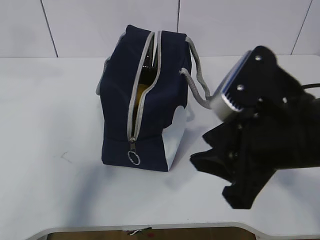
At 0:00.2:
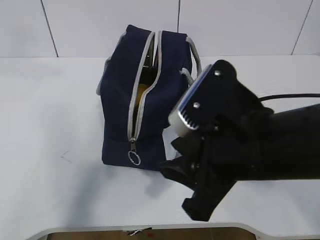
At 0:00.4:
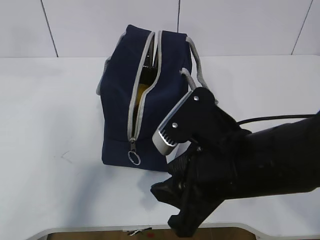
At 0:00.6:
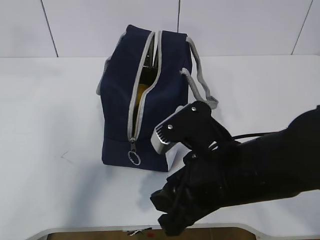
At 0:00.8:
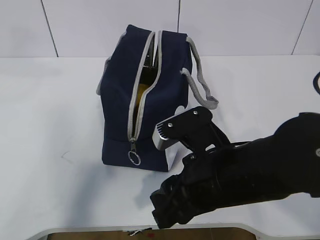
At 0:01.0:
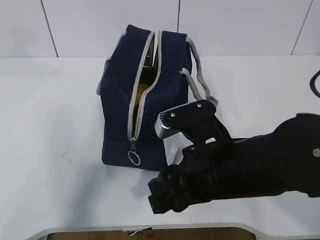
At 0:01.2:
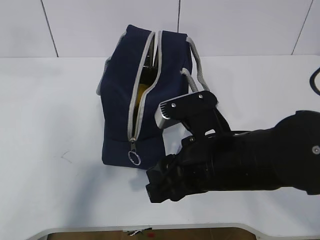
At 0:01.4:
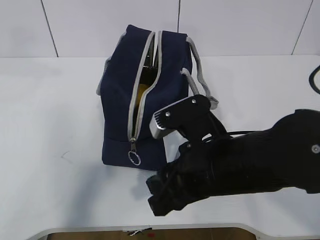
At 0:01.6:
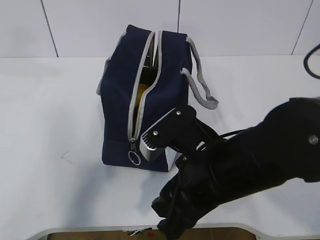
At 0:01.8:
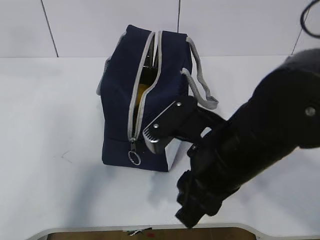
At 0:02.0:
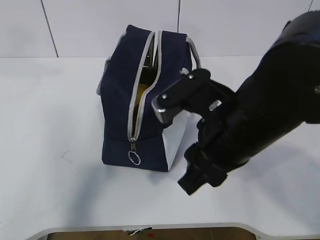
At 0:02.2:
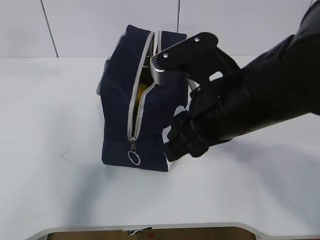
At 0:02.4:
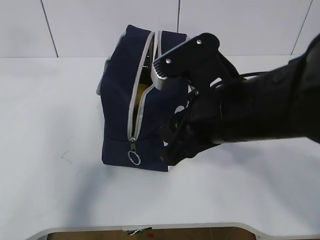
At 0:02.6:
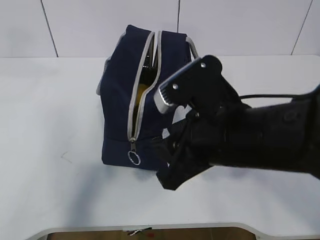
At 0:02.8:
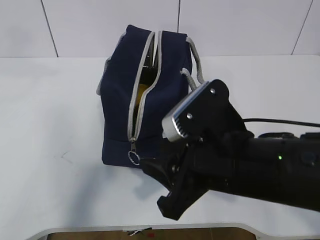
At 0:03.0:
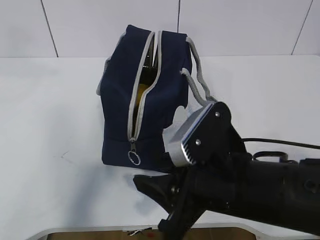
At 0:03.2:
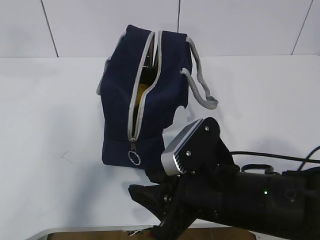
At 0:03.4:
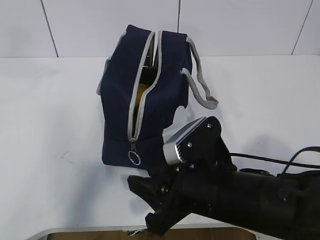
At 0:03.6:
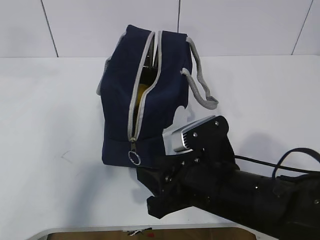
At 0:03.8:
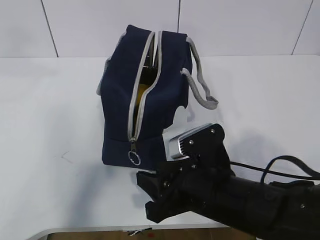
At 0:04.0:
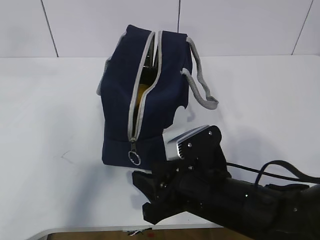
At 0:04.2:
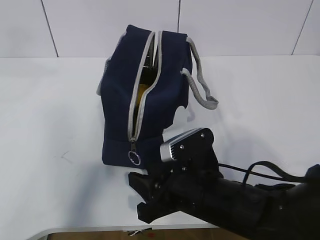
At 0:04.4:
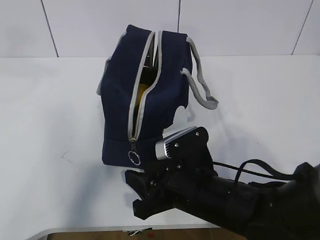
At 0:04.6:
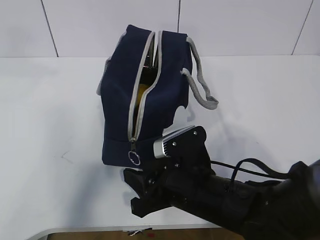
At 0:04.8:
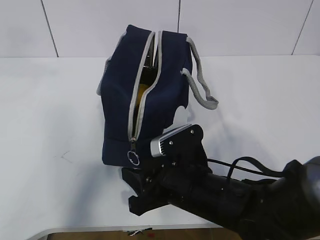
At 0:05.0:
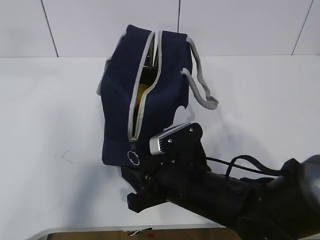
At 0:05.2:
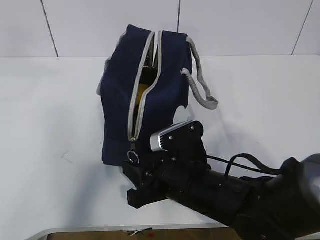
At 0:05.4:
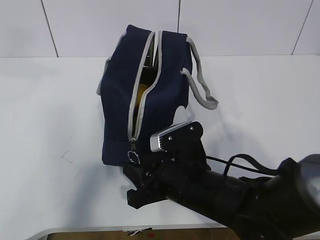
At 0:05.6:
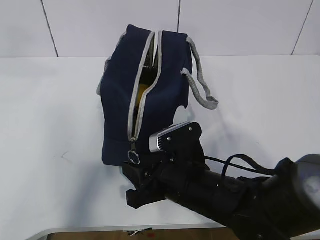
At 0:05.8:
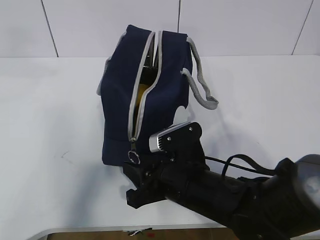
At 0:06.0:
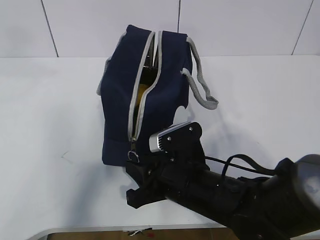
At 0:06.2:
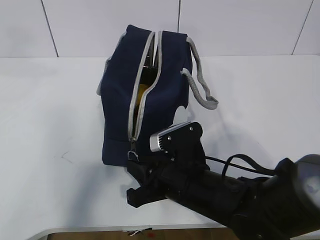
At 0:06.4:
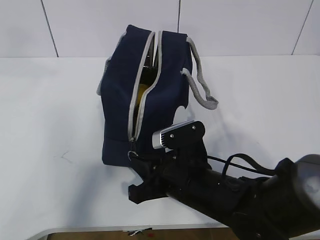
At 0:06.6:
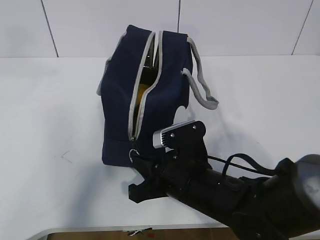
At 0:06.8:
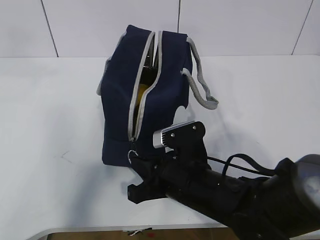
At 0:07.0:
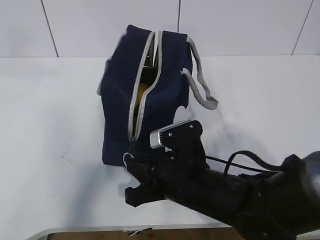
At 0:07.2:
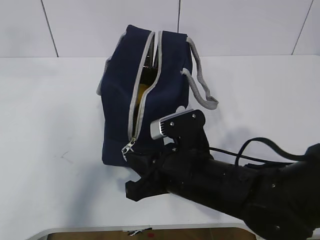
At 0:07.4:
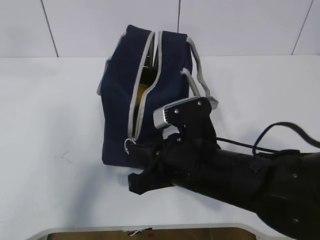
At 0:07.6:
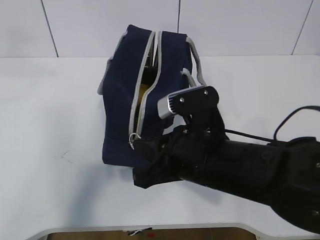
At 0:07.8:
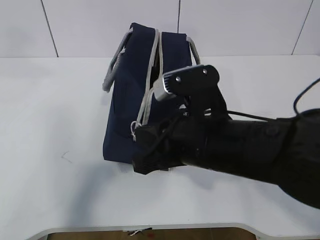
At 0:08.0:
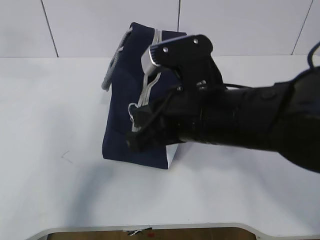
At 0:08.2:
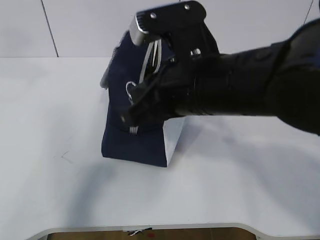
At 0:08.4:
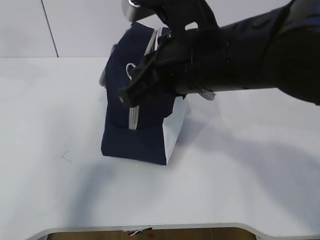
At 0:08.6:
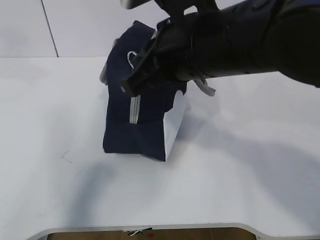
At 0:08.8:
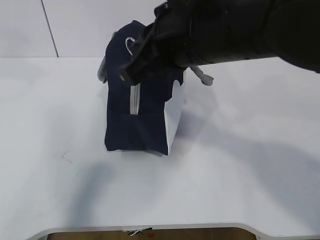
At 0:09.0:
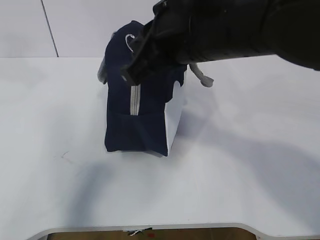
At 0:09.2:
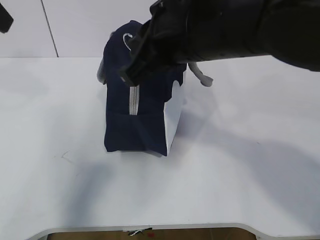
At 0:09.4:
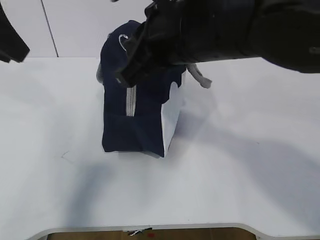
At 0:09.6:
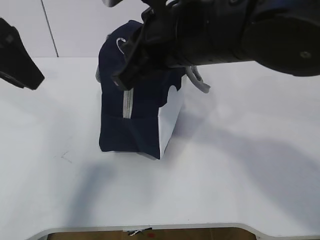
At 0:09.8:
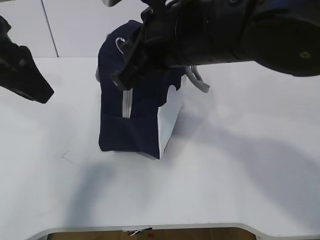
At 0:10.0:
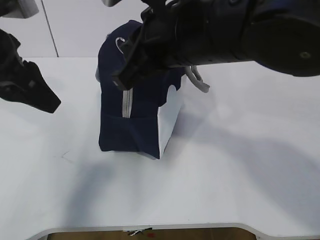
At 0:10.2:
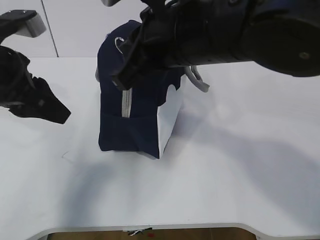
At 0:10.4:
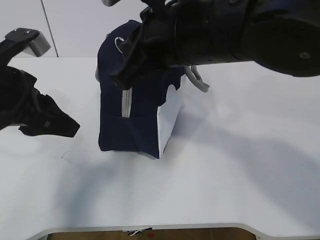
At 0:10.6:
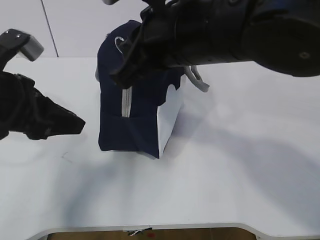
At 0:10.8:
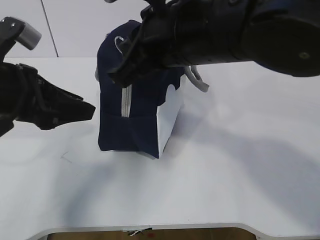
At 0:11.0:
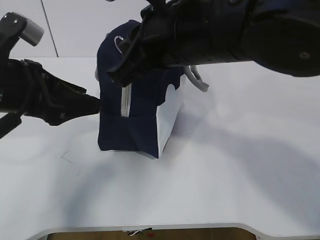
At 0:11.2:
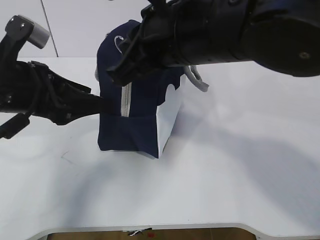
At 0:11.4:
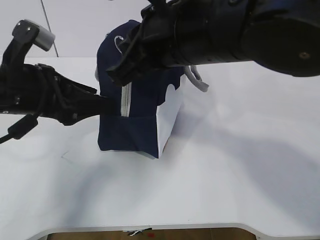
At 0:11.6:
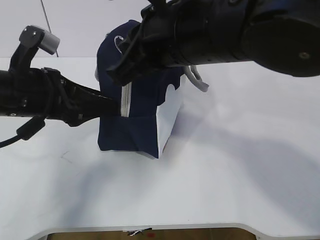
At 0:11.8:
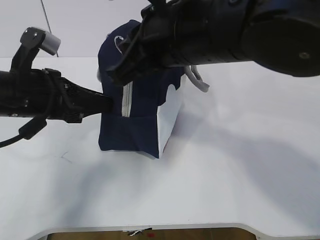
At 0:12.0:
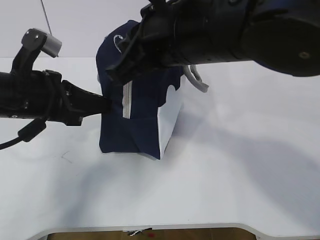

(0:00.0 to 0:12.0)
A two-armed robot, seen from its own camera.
Step, 0:04.4 - 0:09.0: Pull the zipper with your right hand.
Step, 0:09.4 - 0:09.6: Grab the lunch bag with your left hand.
0:00.0 - 0:01.6: The right gripper heads downward and to the left, covering roughly 10 cm.
0:03.0 - 0:04.4: The right gripper heads downward, covering approximately 10 cm.
0:04.4 - 0:06.0: There are only small adjustments of the grippers.
0:06.0 - 0:07.6: The right gripper moves upward, some 5 cm, and closes.
0:07.6 - 0:09.0: The right gripper moves upward, about 15 cm.
0:09.0 - 0:10.4: The left gripper shifts approximately 20 cm downward.
0:10.4 - 0:12.0: The left gripper closes up.

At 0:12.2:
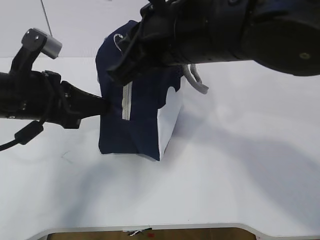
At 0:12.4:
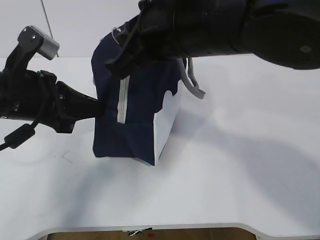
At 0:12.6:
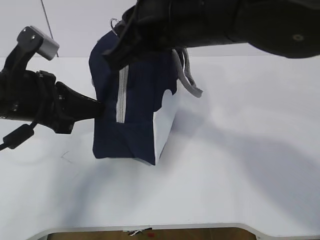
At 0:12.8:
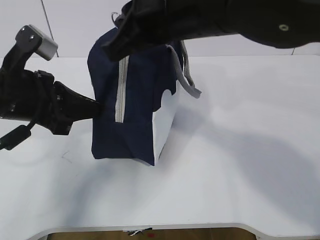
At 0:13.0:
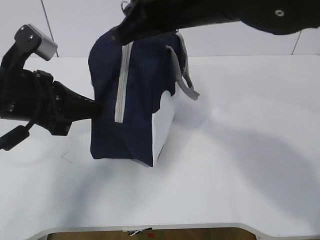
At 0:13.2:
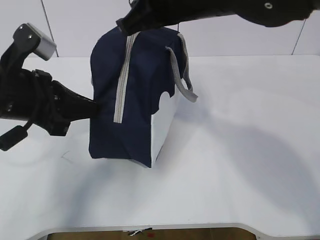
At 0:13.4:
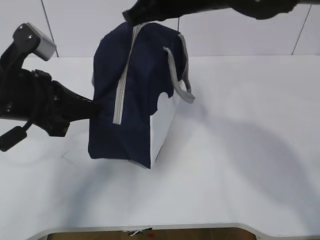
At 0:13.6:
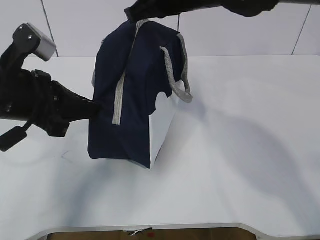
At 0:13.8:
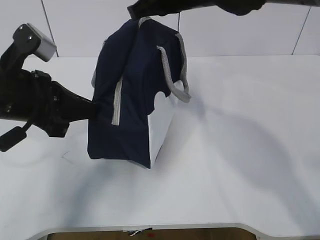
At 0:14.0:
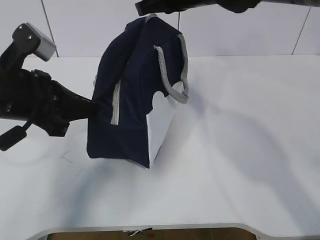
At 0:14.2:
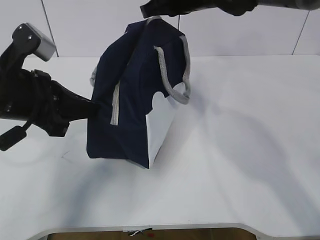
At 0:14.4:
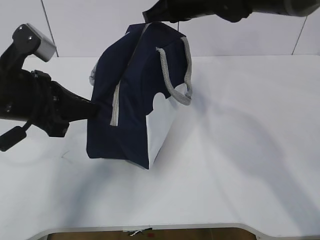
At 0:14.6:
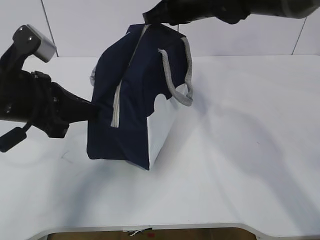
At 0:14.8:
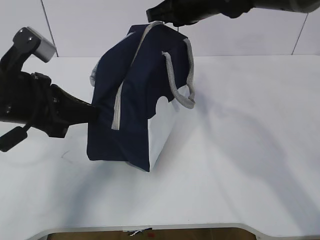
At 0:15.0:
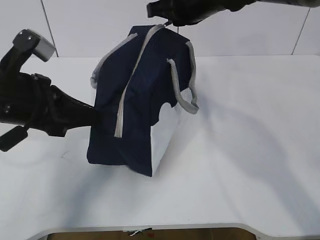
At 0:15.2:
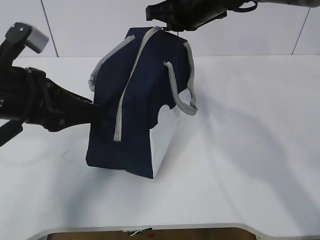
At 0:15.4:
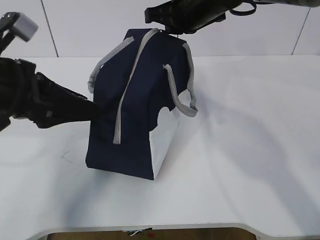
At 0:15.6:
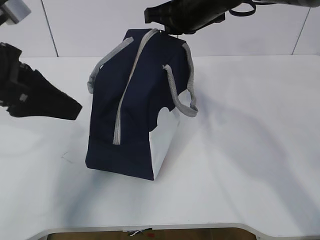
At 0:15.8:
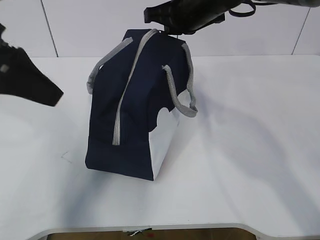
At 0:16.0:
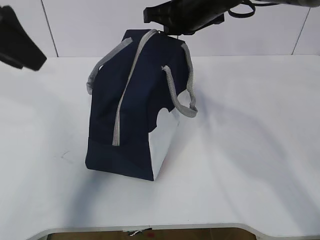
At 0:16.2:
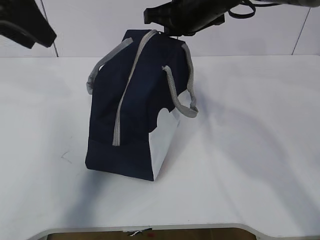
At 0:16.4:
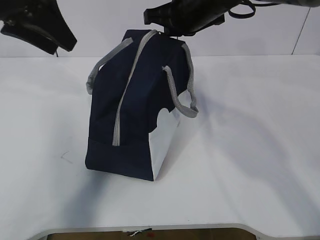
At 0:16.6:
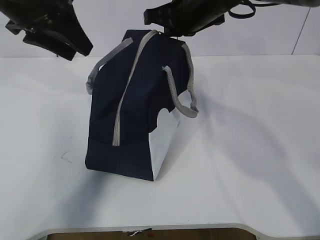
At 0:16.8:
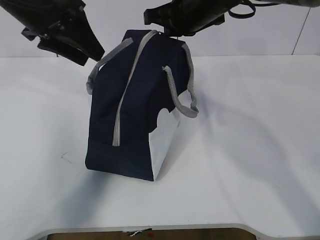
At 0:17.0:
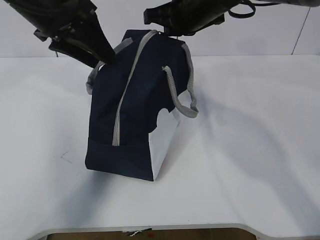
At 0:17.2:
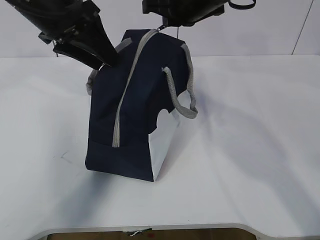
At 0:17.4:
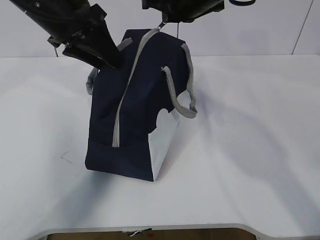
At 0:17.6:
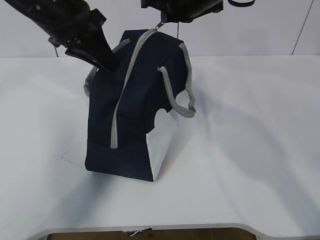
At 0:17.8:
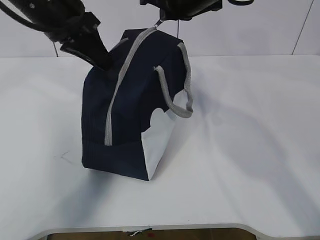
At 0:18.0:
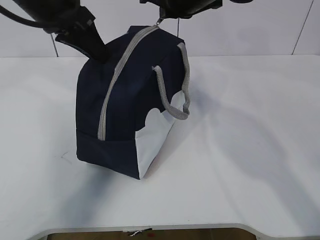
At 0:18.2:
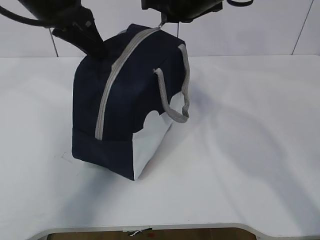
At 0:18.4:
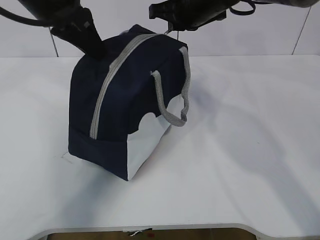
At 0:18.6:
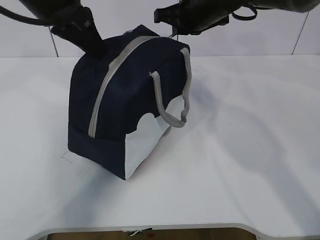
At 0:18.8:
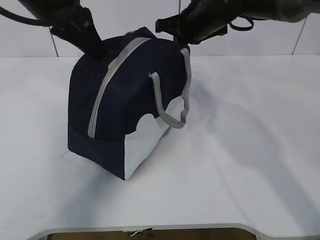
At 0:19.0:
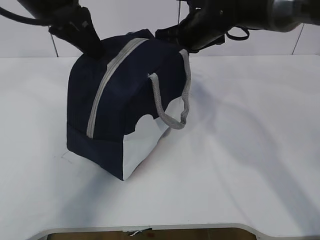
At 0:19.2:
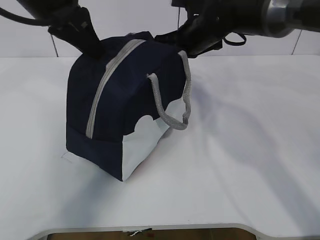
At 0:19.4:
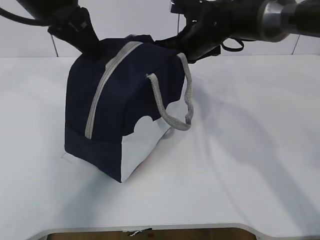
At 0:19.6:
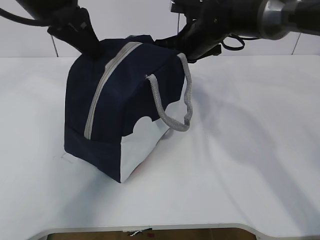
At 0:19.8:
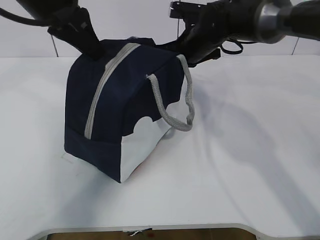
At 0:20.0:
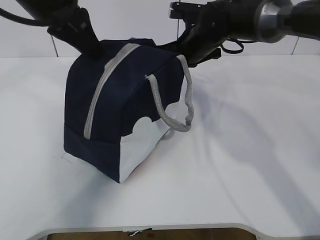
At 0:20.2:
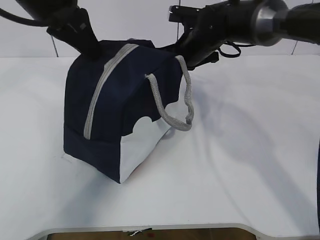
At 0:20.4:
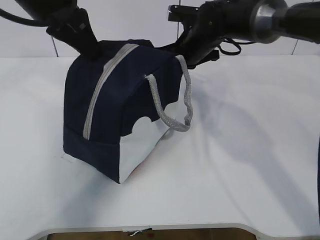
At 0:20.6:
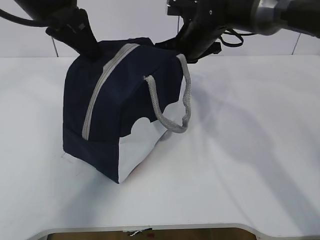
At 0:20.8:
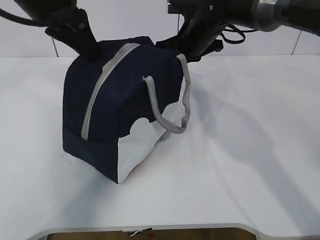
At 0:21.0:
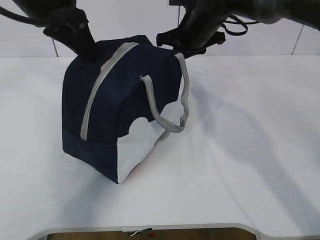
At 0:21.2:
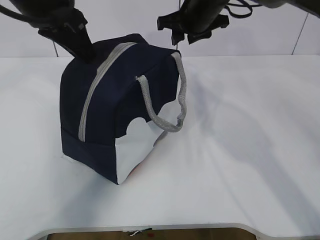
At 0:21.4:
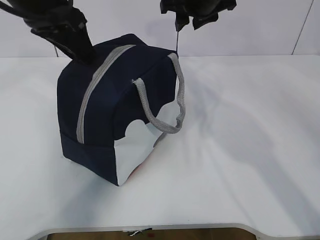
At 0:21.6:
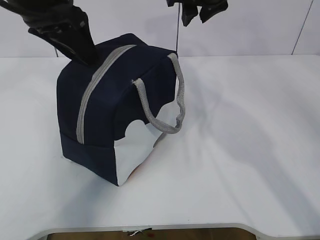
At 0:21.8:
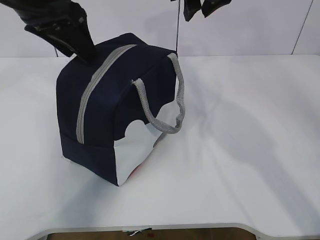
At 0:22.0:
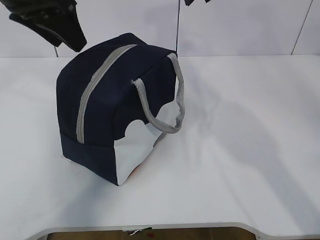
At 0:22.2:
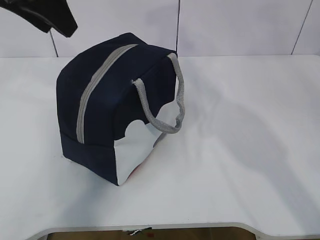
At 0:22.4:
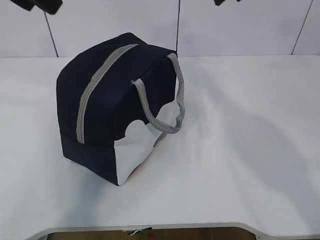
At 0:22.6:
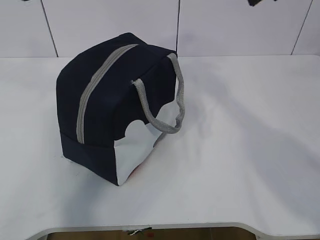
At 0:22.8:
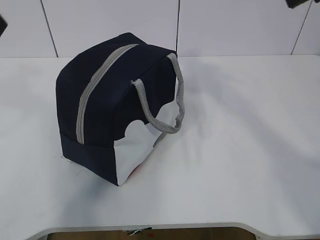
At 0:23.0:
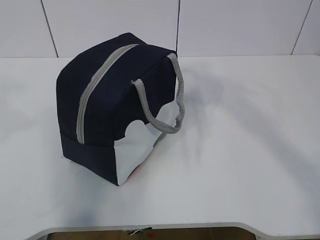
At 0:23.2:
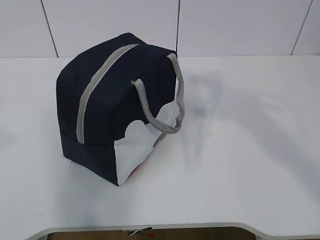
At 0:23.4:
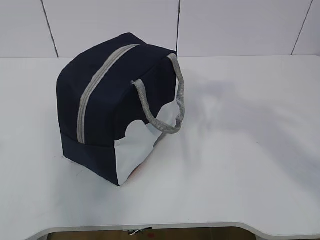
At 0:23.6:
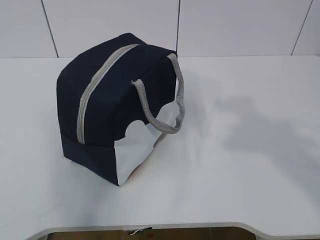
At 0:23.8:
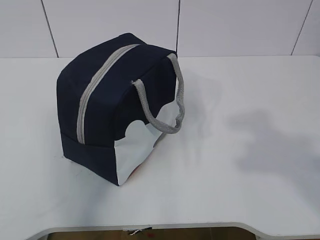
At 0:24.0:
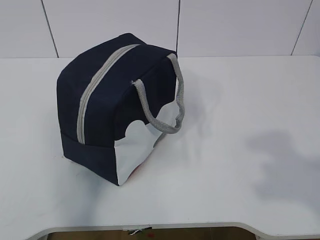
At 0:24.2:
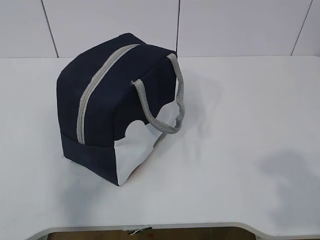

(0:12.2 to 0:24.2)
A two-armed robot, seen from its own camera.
0:12.2 - 0:13.8: The right gripper moves forward, roughly 15 cm.
0:13.8 - 0:15.2: The left gripper opens. The right gripper changes place by roughly 5 cm.
0:15.2 - 0:16.6: The left gripper goes approximately 15 cm forward and upward.
0:16.6 - 0:18.2: The left gripper closes up.
0:18.2 - 0:19.8: The right gripper shifts approximately 10 cm downward.
0:19.8 - 0:21.2: The right gripper heads upward, covering approximately 5 cm, and opens.
0:21.2 - 0:22.6: The left gripper moves upward and backward, roughly 15 cm, and opens up. The right gripper goes some 25 cm backward and upward.
0:22.6 - 0:24.2: The left gripper moves backward and to the left, some 30 cm; the right gripper shifts approximately 30 cm backward.
